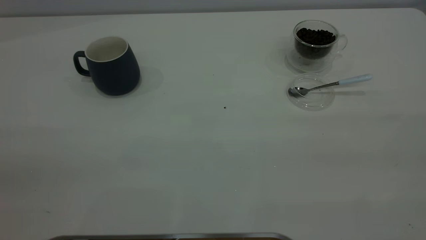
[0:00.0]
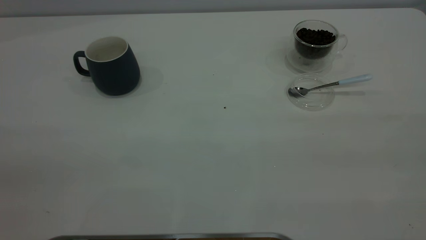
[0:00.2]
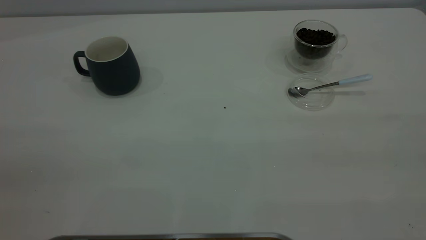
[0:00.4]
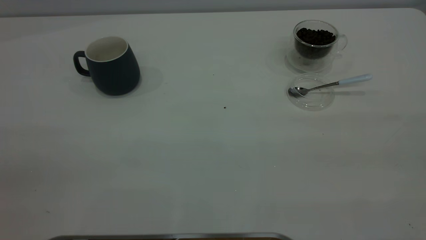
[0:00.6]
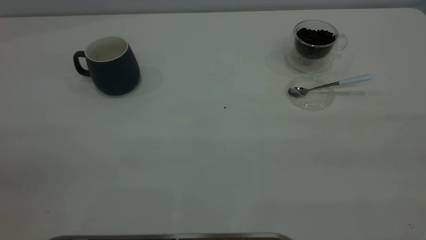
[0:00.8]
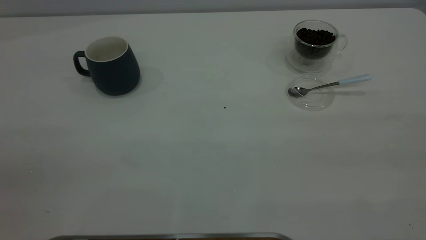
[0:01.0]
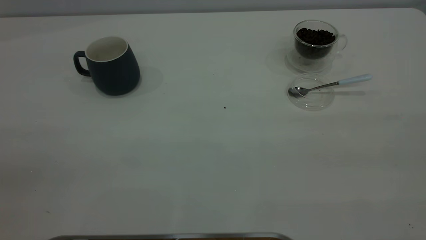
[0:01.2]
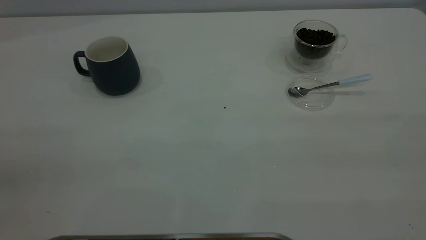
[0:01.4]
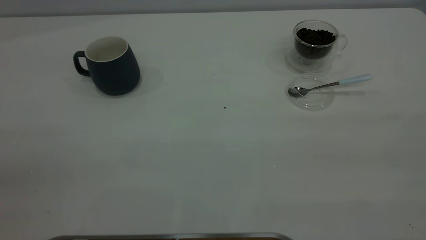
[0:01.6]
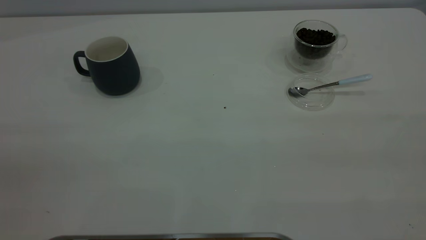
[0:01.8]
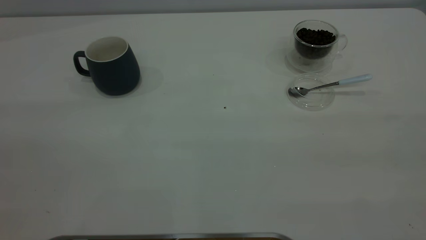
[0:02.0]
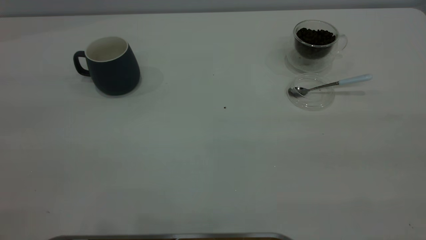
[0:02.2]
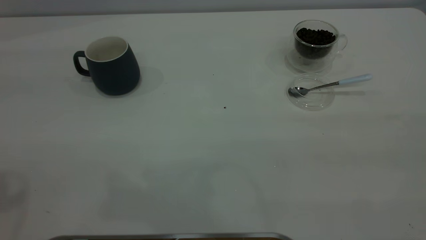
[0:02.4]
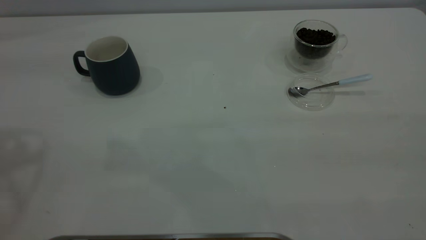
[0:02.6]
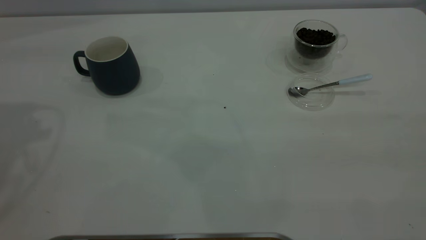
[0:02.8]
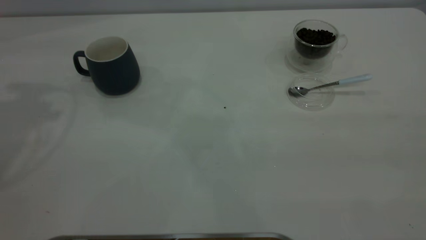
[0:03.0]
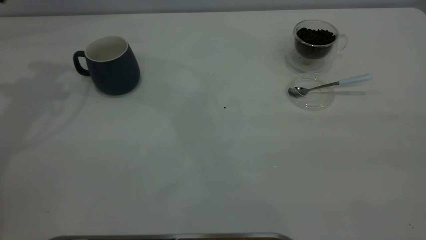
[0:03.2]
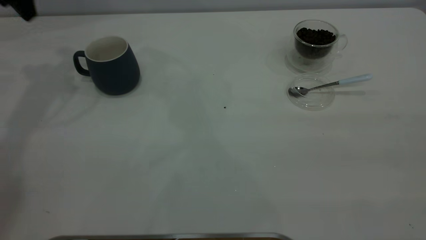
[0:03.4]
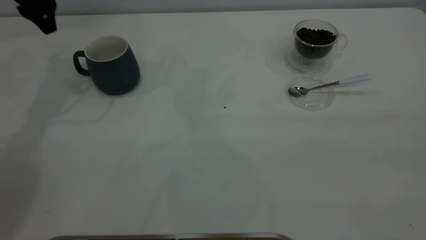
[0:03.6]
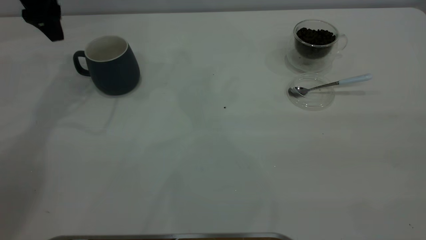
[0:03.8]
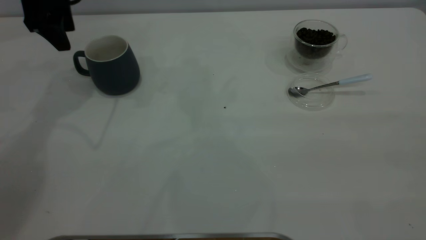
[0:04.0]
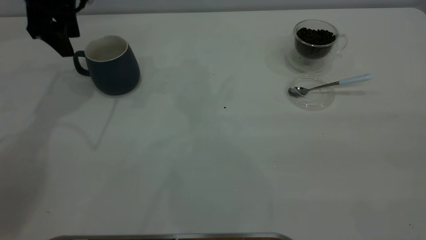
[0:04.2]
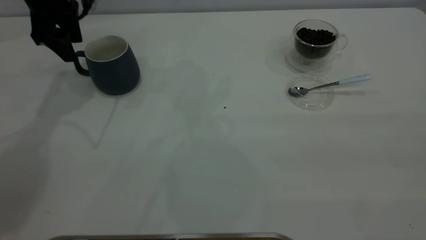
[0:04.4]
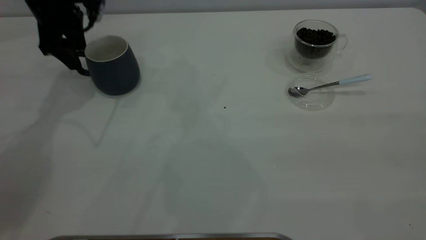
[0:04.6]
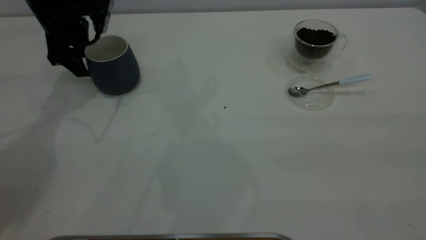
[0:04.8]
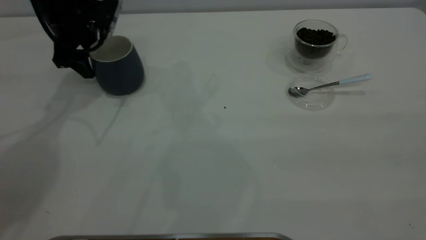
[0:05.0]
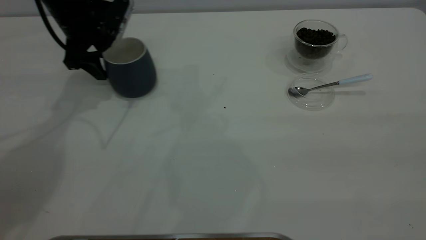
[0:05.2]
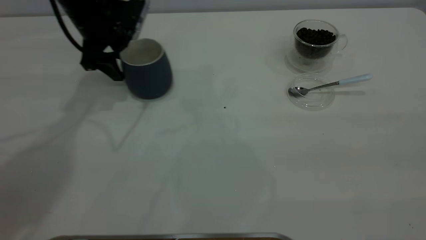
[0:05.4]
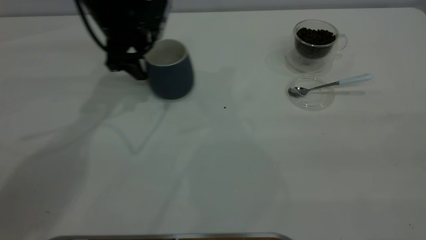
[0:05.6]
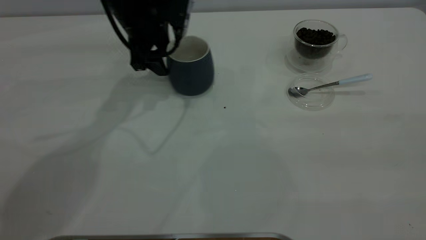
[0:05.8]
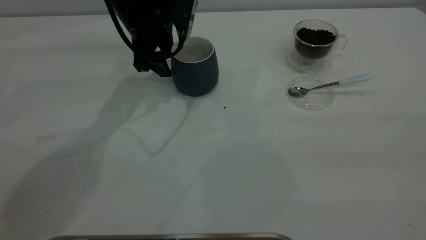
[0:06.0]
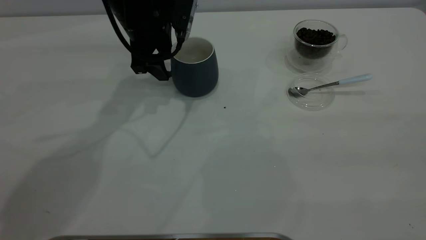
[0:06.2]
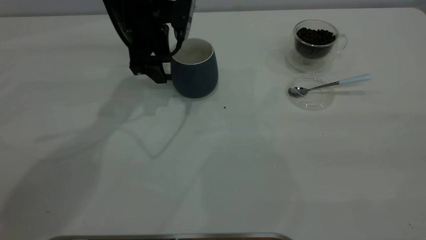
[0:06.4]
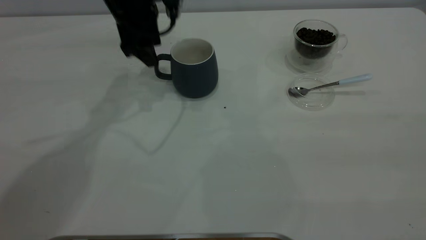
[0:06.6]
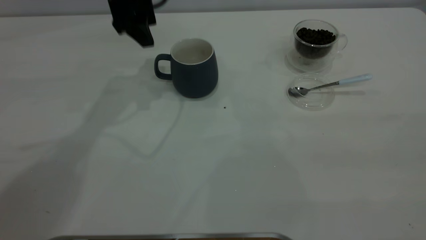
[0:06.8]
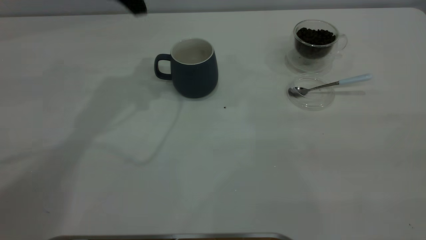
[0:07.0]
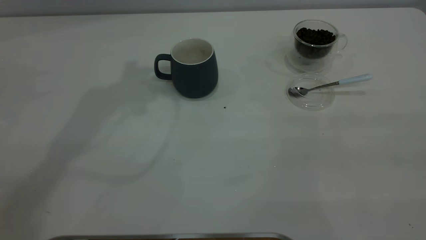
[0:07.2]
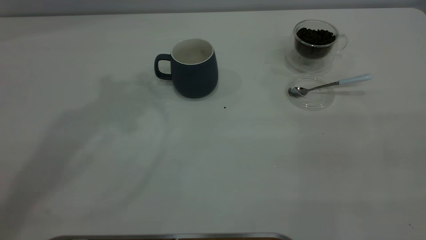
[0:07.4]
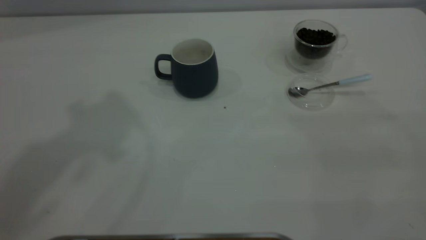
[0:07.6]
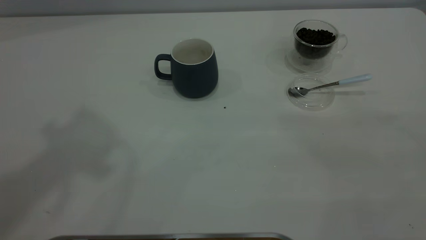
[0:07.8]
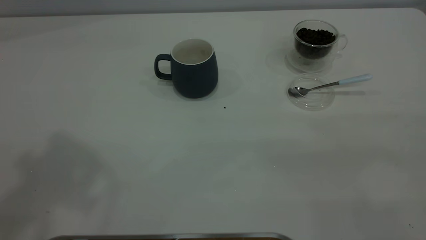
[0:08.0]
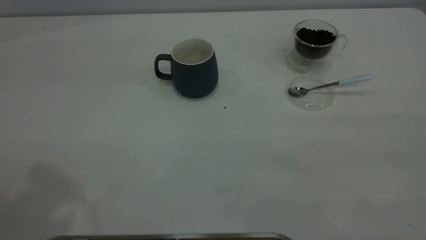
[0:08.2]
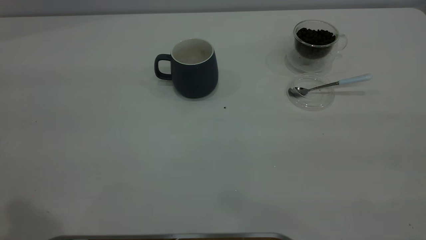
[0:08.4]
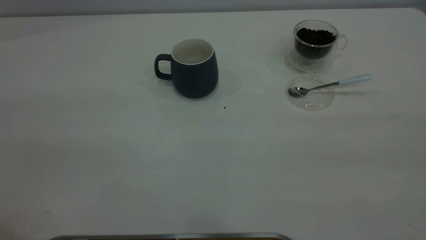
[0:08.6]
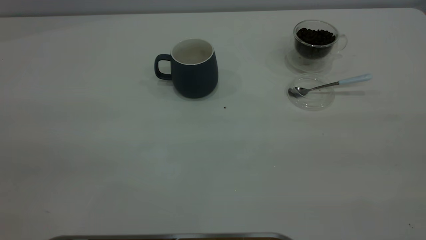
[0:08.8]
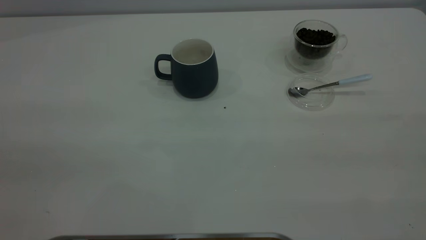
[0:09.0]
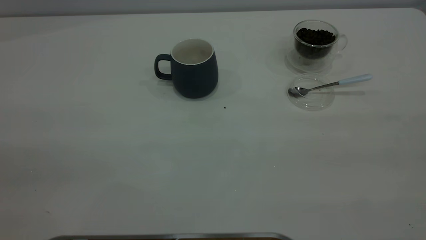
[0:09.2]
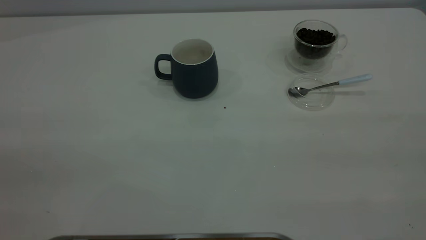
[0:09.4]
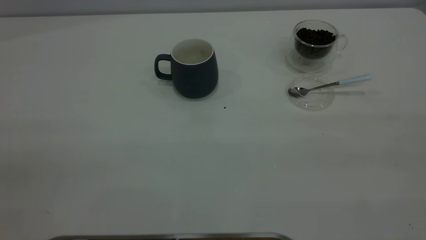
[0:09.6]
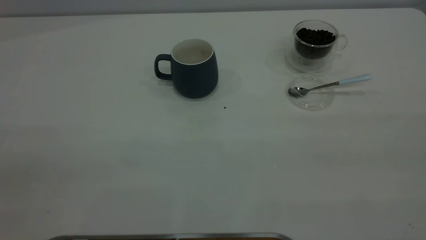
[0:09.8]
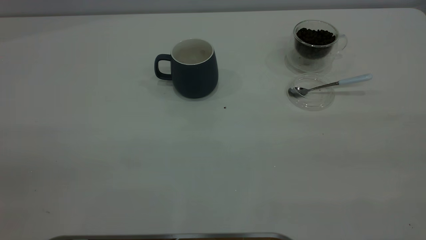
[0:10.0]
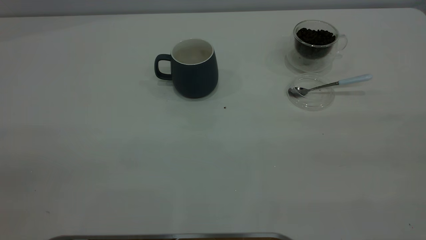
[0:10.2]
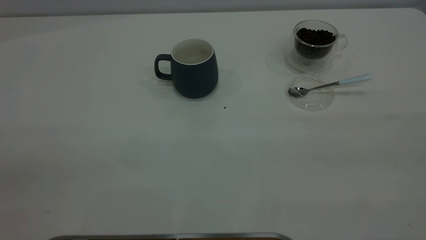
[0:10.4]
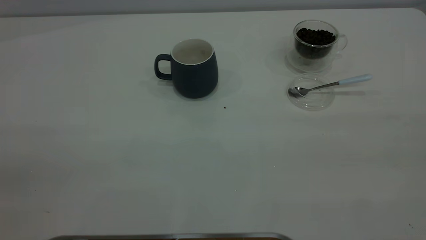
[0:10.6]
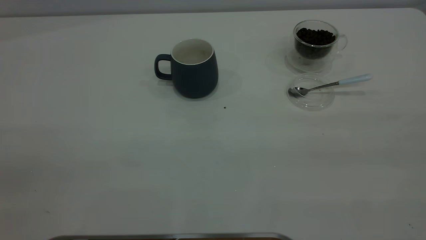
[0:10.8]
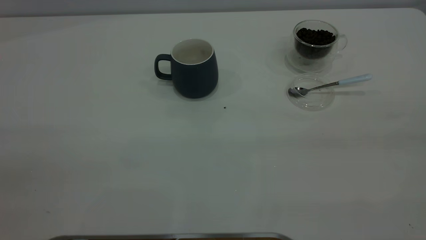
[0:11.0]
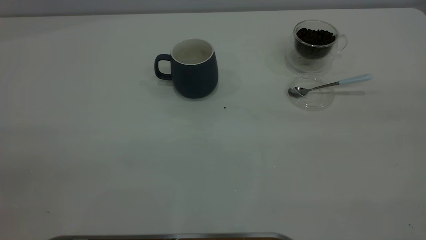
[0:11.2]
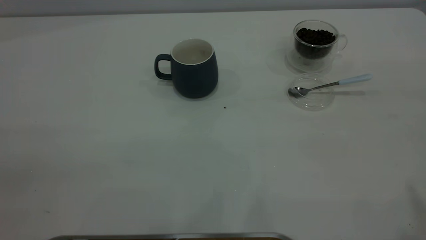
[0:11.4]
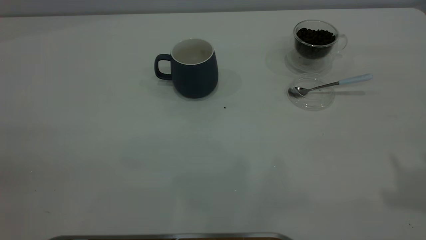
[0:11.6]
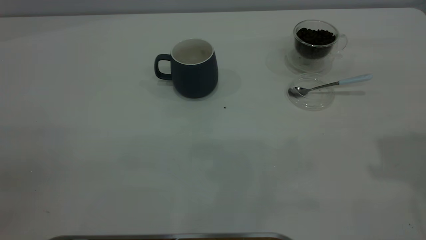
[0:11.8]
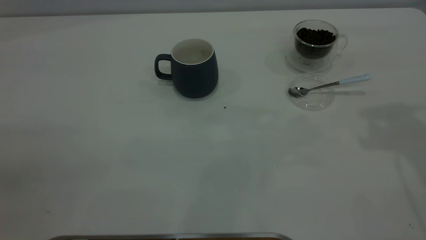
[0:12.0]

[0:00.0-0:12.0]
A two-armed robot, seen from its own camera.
Task of the whole recording: the left gripper place the grey cup in the center of the table, the right gripper take the blue spoon from the cup lid and scoop out the coffee beans from the coffee cup and put them into the grey cup, the right gripper put the spoon back into the cup lid.
Step, 0:00.0 to 0:06.6: Move the cup to the center of view.
0:00.0 to 0:01.6: The two grippers keep their place.
0:03.0 to 0:04.4: The left gripper goes about 20 cm downward, forward and to the right.
0:04.4 to 0:06.0: The left gripper heads to the right, covering roughly 15 cm.
0:06.0 to 0:07.6: The left gripper shifts some 40 cm upward and backward.

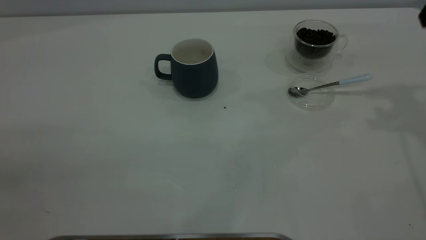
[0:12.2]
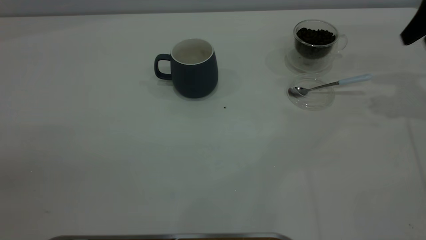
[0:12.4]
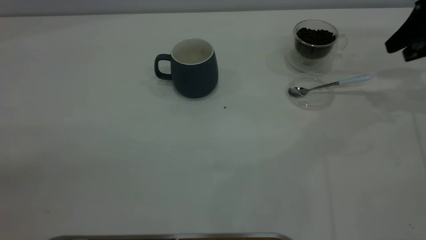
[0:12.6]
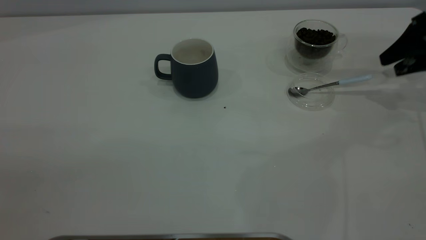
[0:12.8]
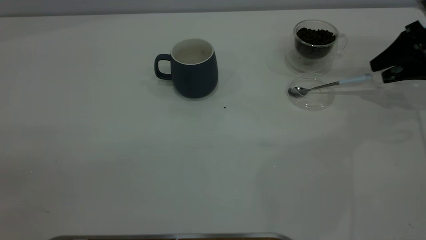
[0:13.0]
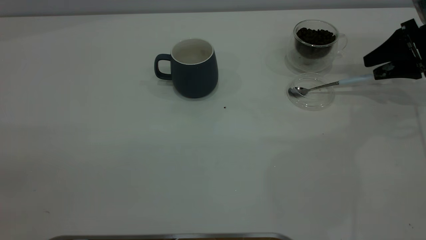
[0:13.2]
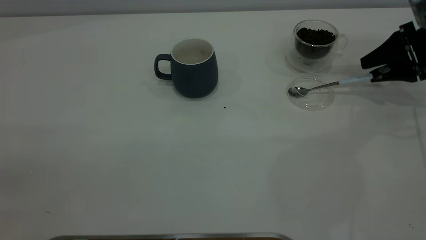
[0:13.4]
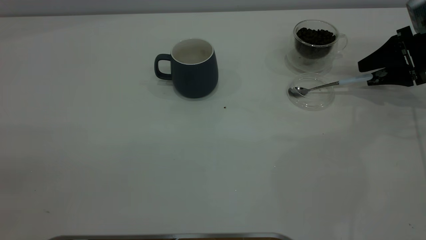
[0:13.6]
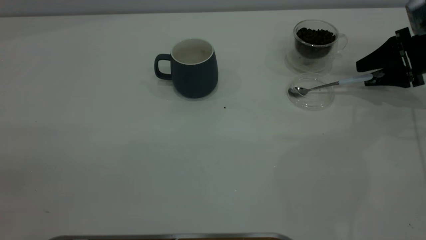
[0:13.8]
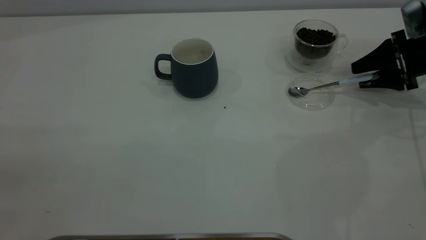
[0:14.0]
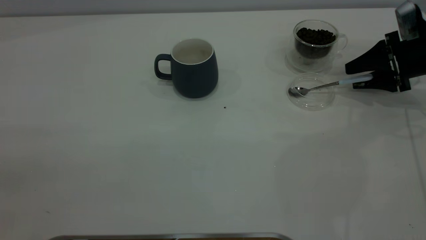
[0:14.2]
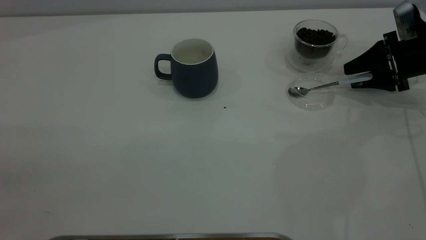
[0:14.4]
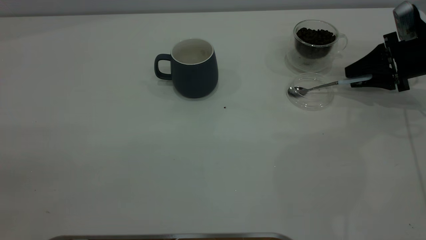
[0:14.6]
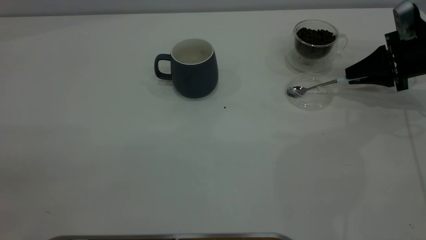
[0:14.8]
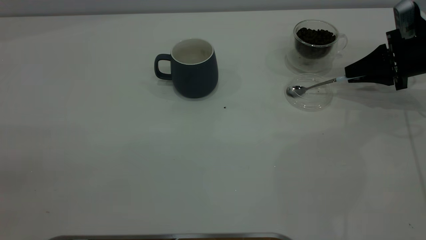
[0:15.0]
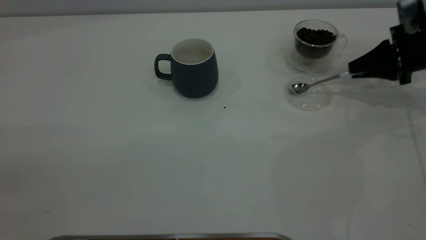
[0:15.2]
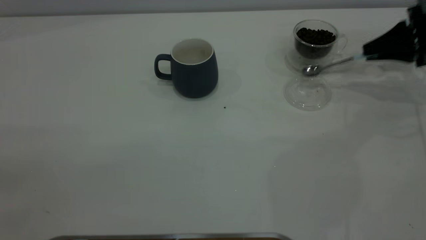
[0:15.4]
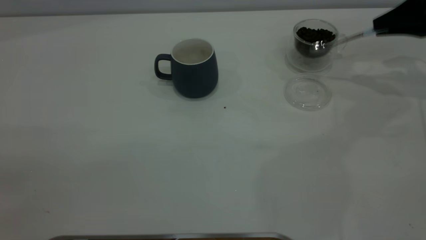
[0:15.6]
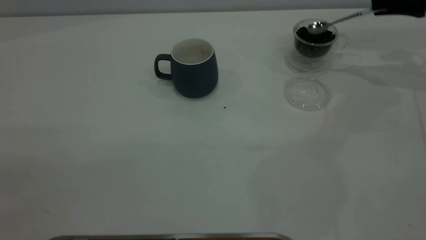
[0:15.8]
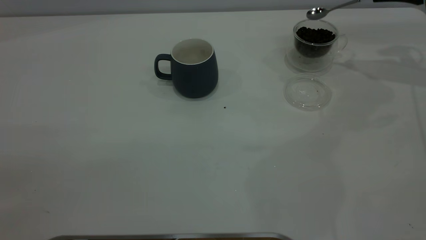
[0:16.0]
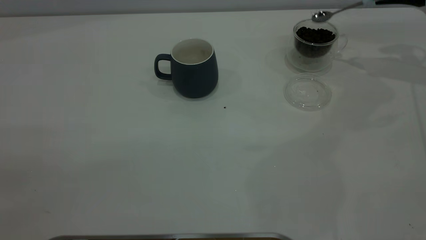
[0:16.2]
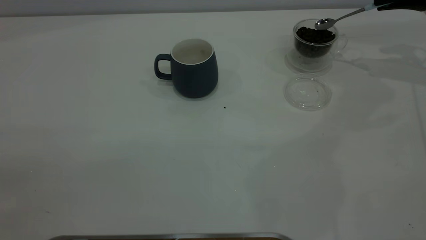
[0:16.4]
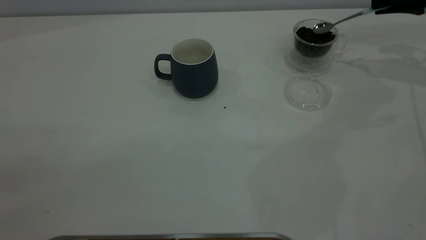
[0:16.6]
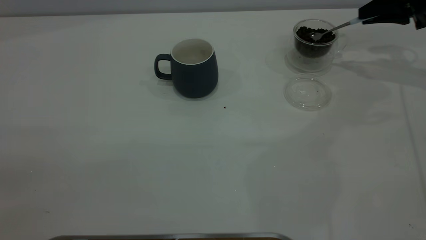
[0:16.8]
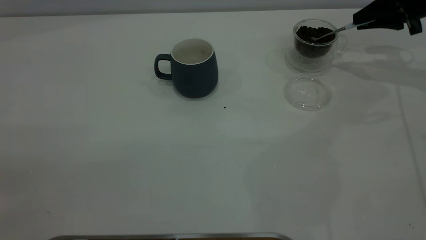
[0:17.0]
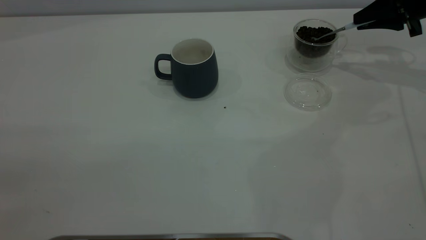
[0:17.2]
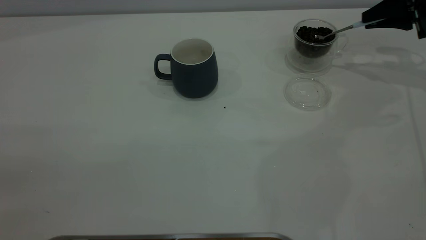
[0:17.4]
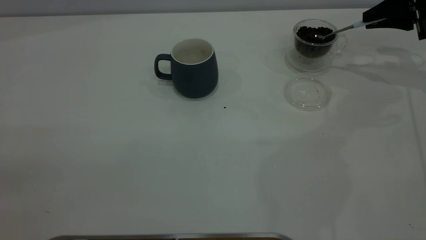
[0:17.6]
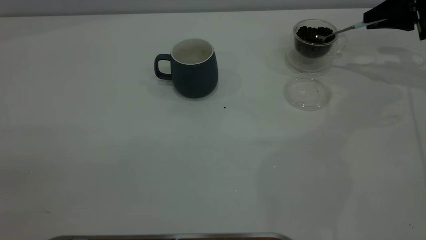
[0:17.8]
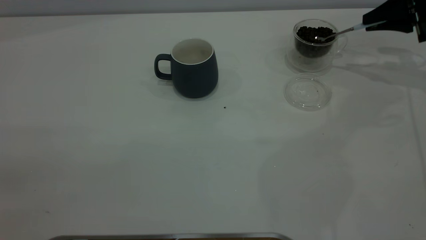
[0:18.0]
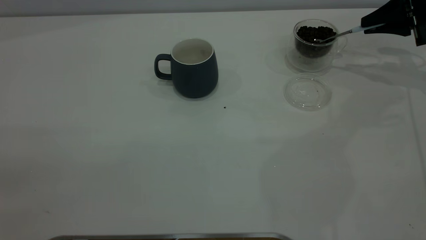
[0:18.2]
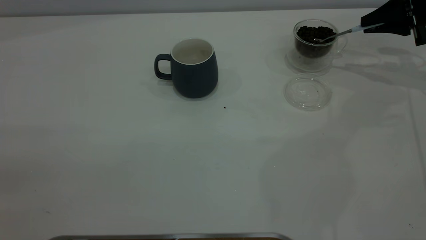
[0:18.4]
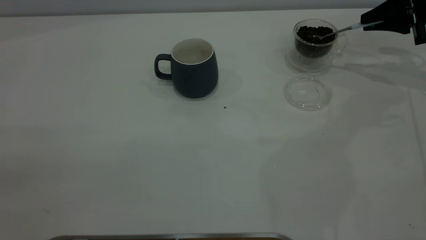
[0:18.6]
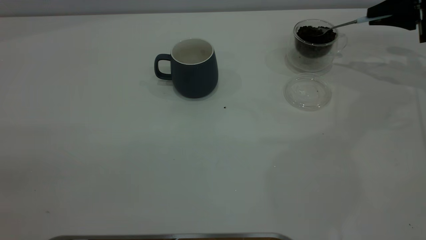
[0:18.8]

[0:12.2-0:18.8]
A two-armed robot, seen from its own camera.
Task of the whole recording: the left gripper place the grey cup in the center of the table, the right gripper take the blue spoon from the cup lid and scoop out the coffee beans from the coffee cup and put them into the grey cup, the right gripper put the spoon back into the cup lid.
Step, 0:12.2 to 0:15.4: Pick up the spoon.
0:12.2 to 0:13.8: The right gripper moves downward, about 20 cm.
0:13.8 to 0:15.4: The right gripper closes.
0:15.4 to 0:17.2: The right gripper shifts by approximately 5 cm.
0:17.2 to 0:18.8: There are only small adjustments of the grippers.
